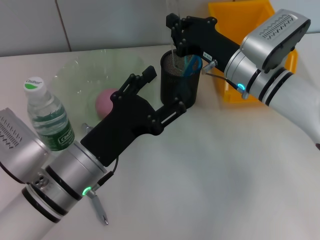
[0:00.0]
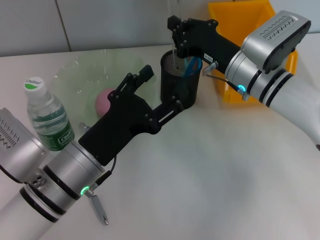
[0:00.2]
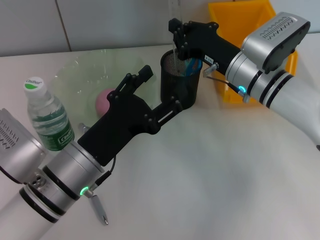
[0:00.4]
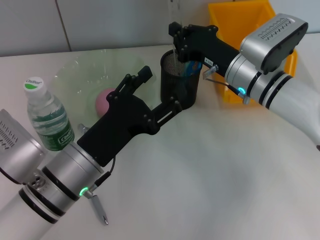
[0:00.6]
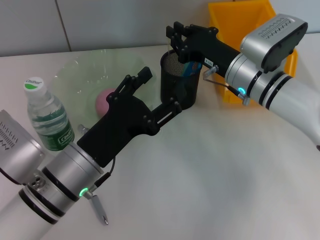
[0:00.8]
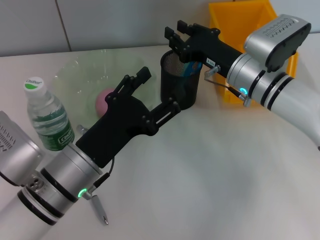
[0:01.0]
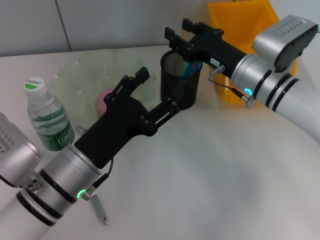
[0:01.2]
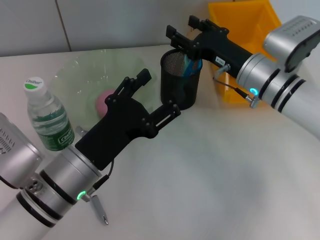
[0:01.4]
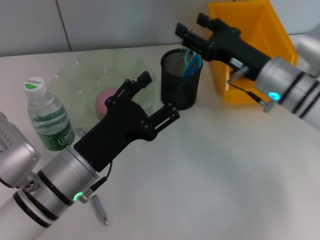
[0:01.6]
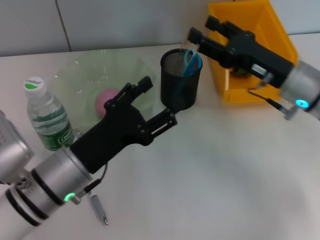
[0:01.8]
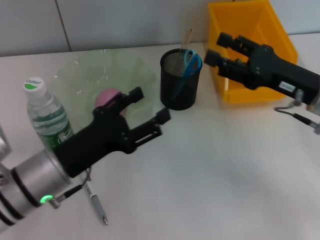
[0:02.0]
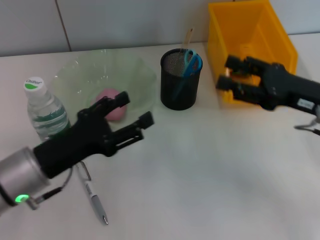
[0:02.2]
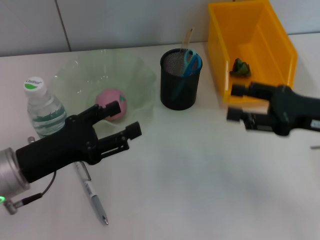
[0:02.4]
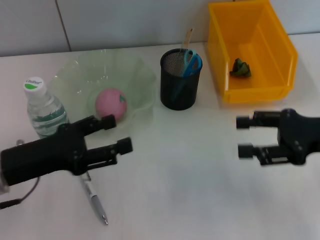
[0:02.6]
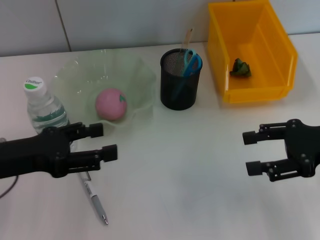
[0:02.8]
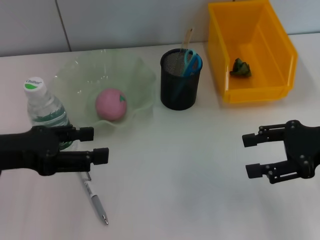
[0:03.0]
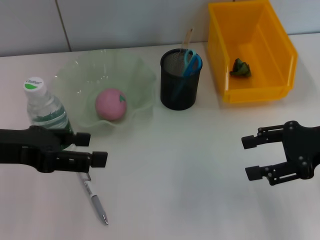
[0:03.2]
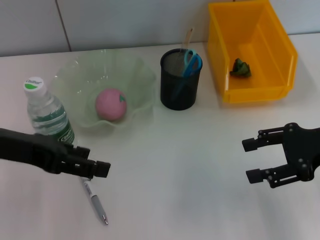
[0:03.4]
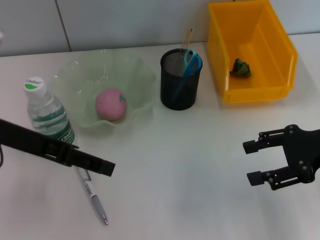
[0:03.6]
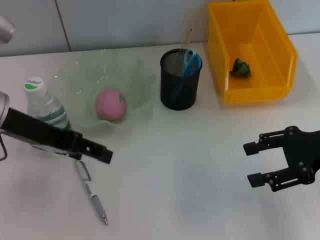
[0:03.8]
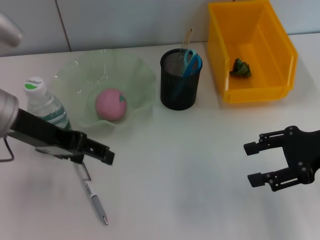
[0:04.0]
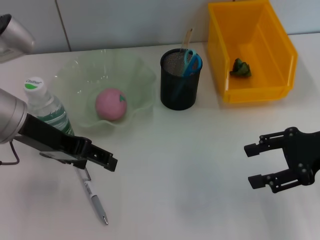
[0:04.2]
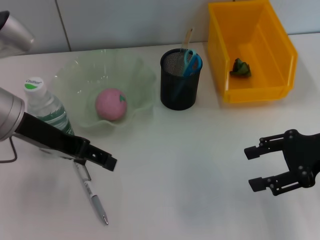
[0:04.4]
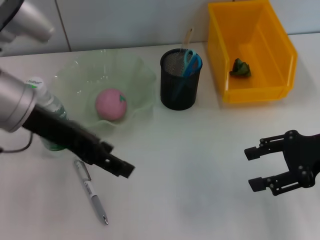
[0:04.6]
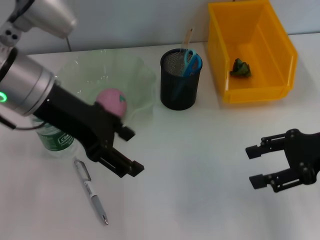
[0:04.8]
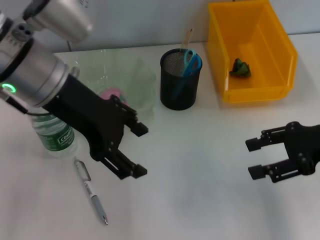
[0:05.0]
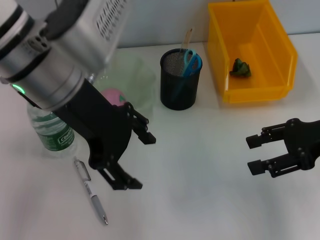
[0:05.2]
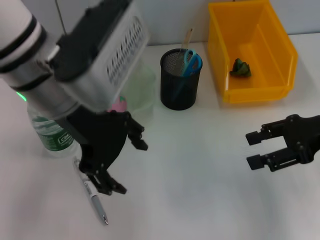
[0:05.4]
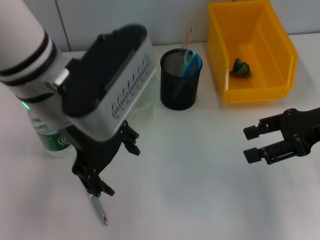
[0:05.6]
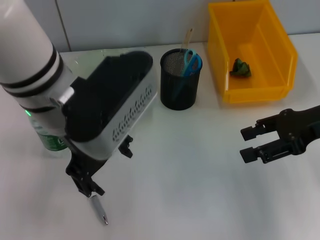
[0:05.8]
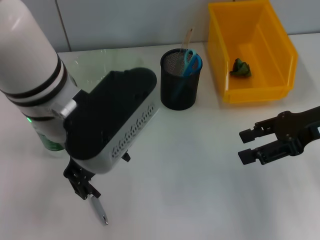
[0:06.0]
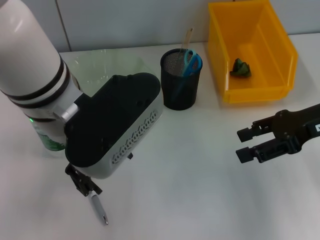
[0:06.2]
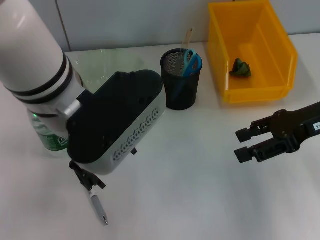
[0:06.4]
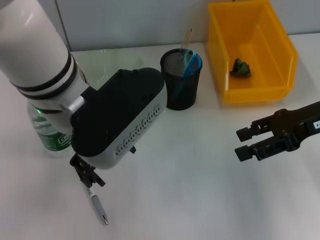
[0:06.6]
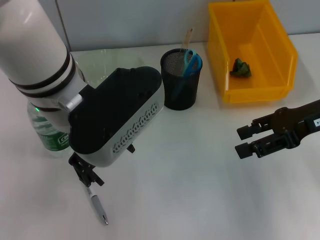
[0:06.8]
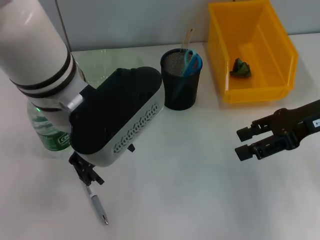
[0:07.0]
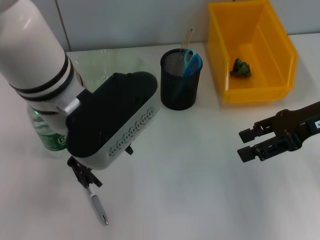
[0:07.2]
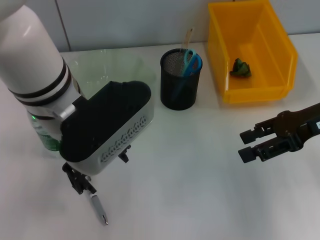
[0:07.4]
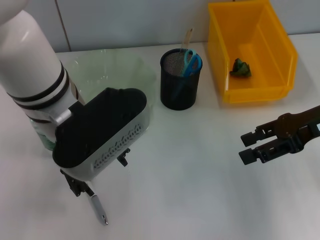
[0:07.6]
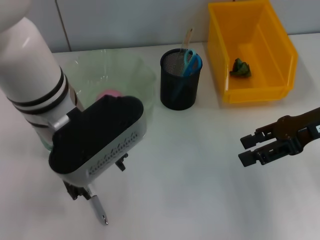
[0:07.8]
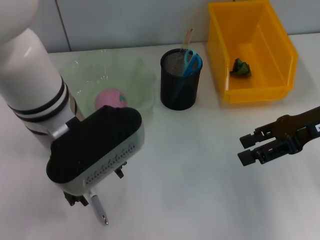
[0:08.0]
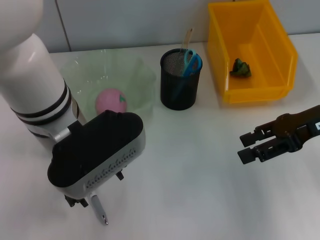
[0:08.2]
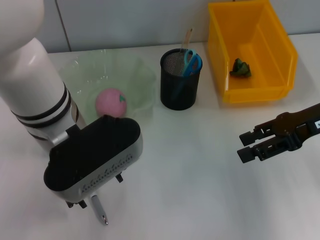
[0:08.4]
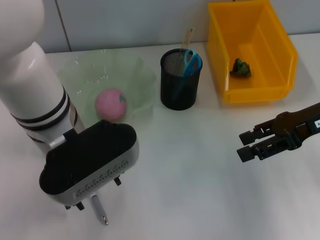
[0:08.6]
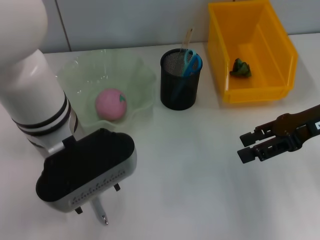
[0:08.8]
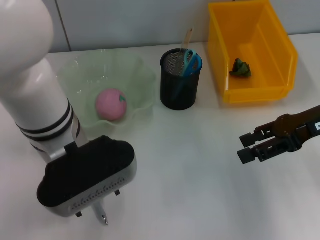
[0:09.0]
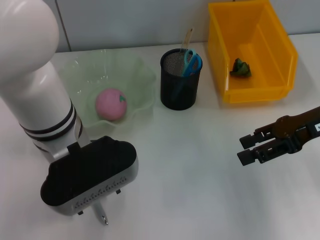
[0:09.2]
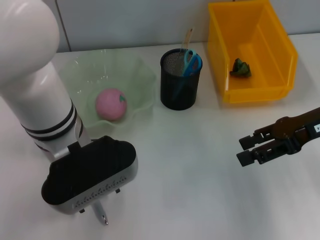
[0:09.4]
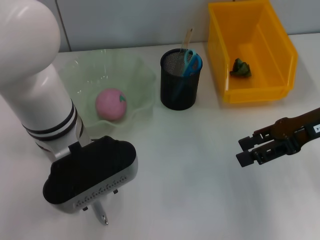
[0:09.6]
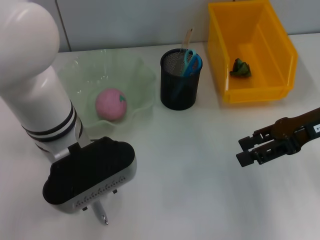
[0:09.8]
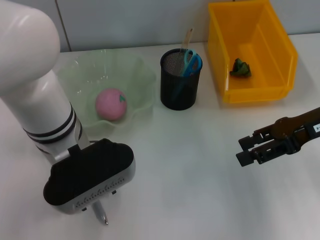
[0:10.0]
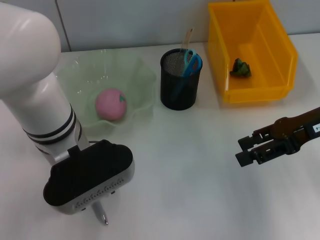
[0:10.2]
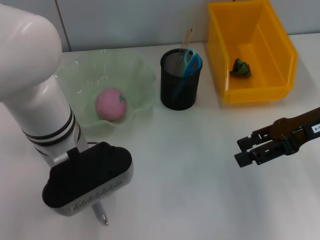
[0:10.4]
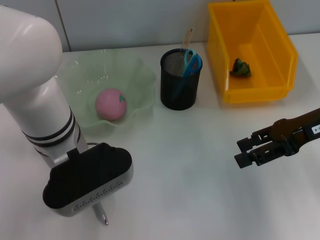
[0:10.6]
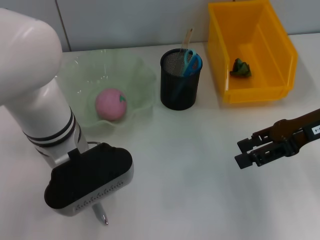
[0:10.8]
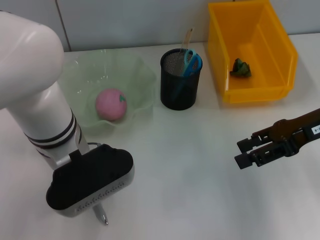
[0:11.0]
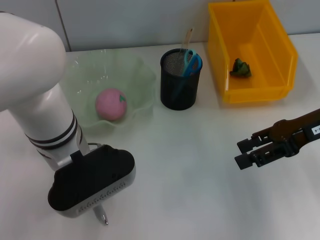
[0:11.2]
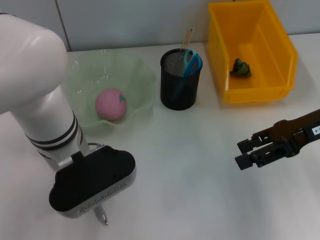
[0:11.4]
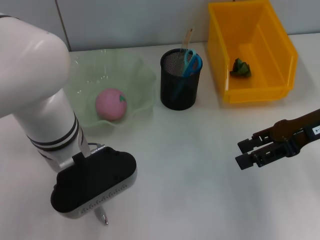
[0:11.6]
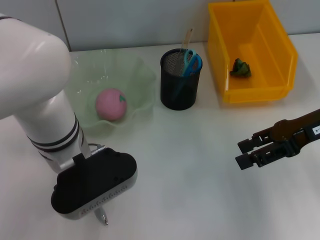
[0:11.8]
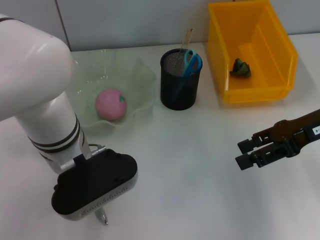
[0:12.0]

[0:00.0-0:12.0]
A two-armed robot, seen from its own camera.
0:00.0 to 0:01.6: The right gripper opens up.
0:01.6 to 0:03.0: The right gripper goes roughly 15 cm to the right and backward. The left gripper is displaced to the left and upward by approximately 15 cm.
0:03.0 to 0:04.4: The left gripper travels to the right and forward by approximately 10 cm.
0:04.4 to 0:06.0: The left gripper travels to the right by roughly 10 cm.
0:06.0 to 0:07.6: There are only small adjustments of the grippers.
0:07.6 to 0:09.0: There are only small adjustments of the grippers.
0:09.0 to 0:10.4: The grippers move only a little.
0:10.4 to 0:12.0: The left gripper closes up.

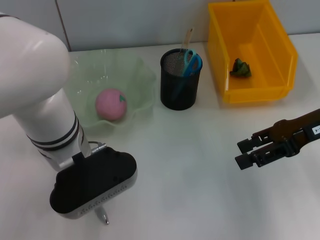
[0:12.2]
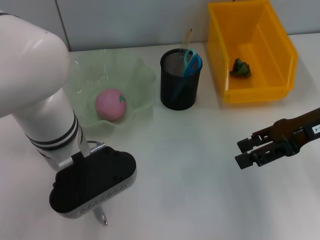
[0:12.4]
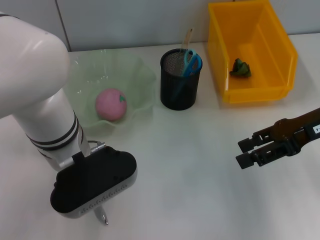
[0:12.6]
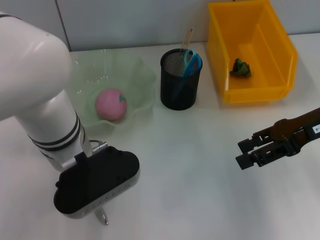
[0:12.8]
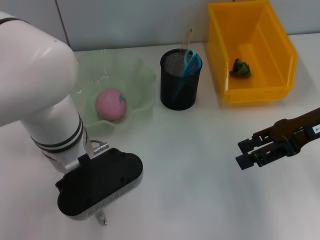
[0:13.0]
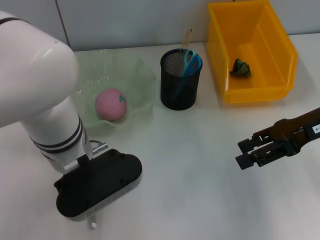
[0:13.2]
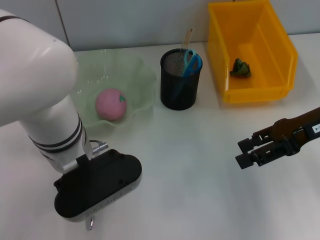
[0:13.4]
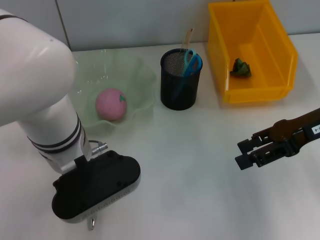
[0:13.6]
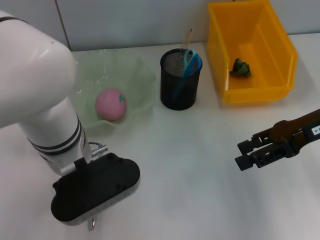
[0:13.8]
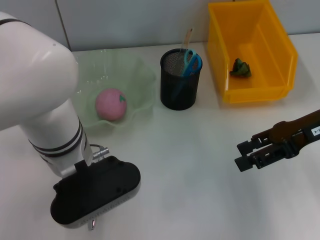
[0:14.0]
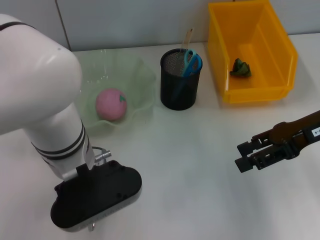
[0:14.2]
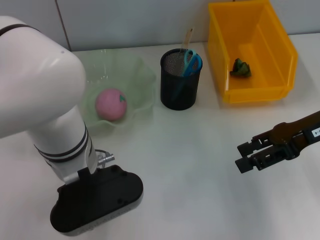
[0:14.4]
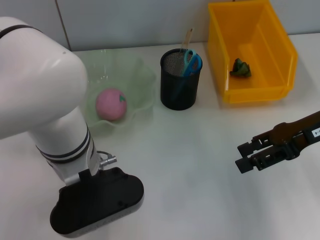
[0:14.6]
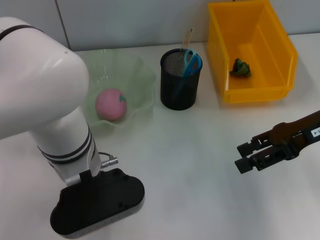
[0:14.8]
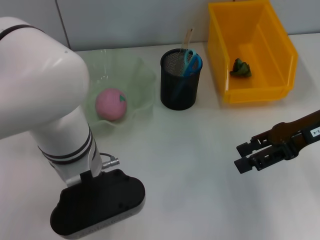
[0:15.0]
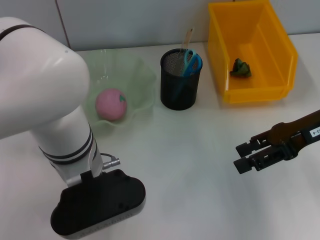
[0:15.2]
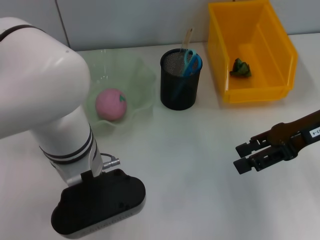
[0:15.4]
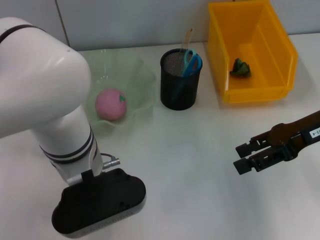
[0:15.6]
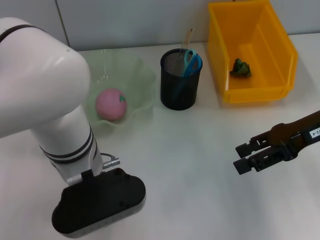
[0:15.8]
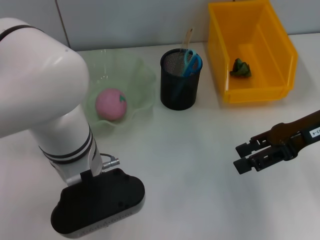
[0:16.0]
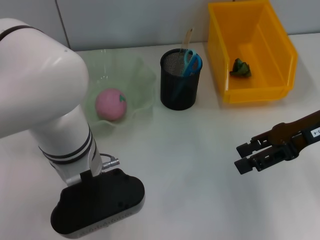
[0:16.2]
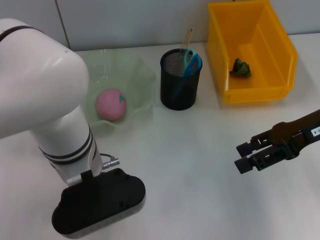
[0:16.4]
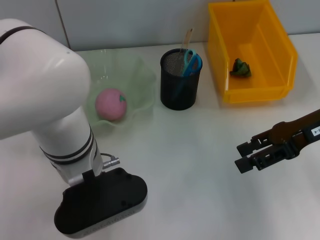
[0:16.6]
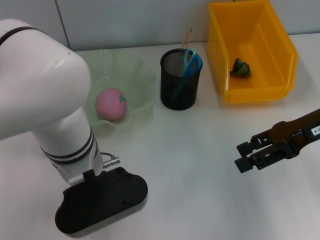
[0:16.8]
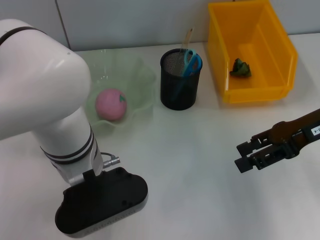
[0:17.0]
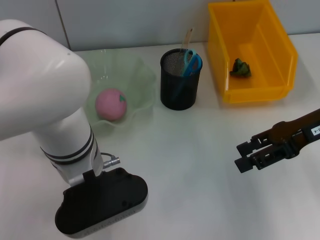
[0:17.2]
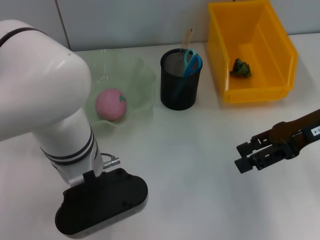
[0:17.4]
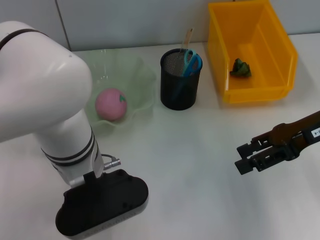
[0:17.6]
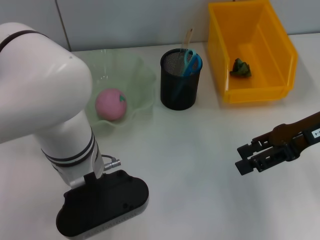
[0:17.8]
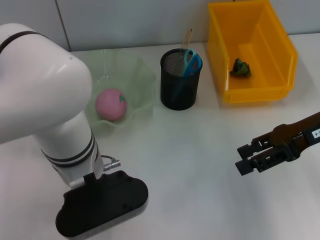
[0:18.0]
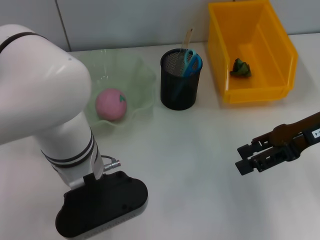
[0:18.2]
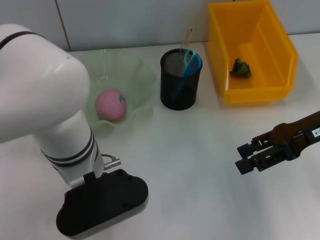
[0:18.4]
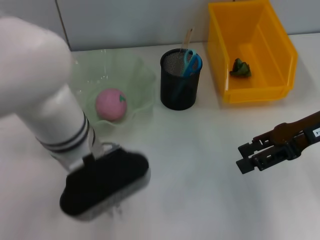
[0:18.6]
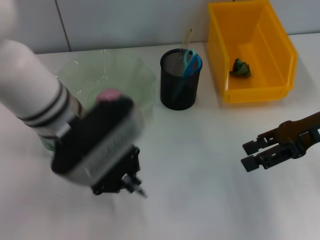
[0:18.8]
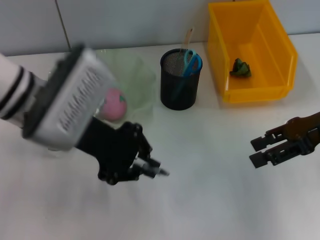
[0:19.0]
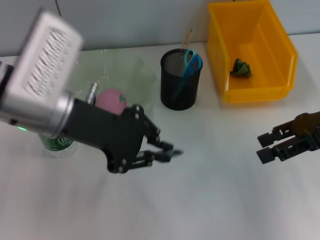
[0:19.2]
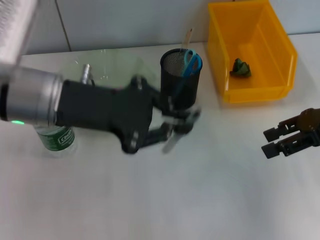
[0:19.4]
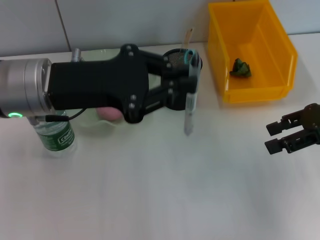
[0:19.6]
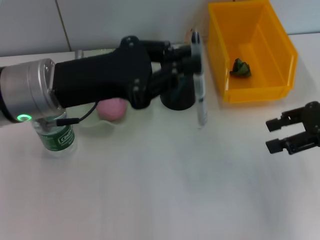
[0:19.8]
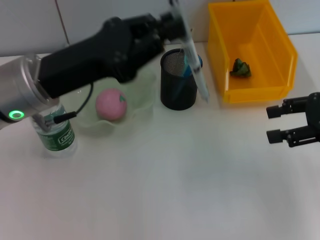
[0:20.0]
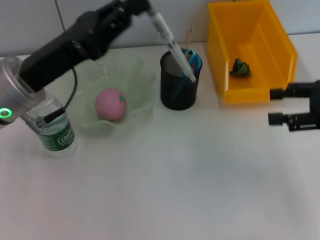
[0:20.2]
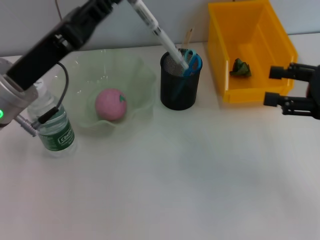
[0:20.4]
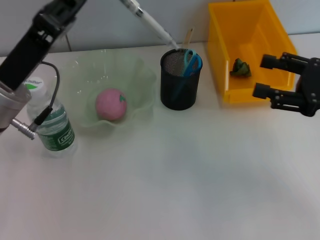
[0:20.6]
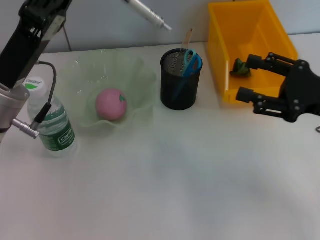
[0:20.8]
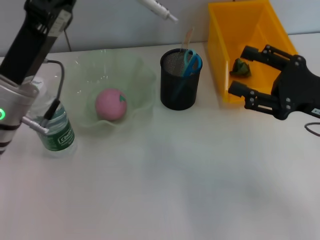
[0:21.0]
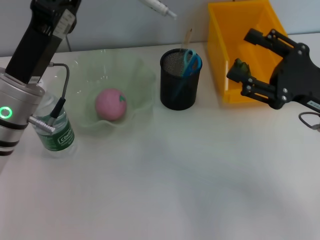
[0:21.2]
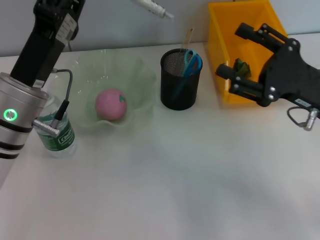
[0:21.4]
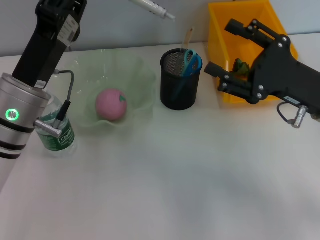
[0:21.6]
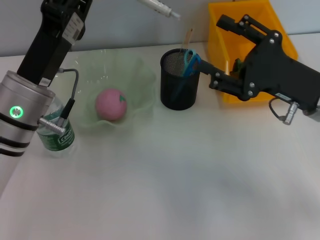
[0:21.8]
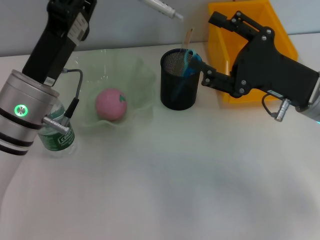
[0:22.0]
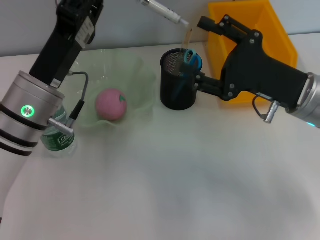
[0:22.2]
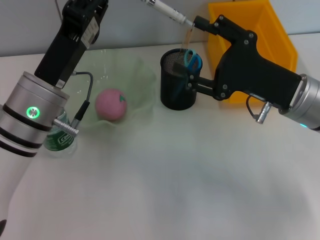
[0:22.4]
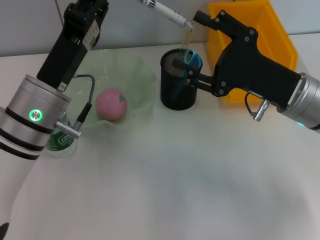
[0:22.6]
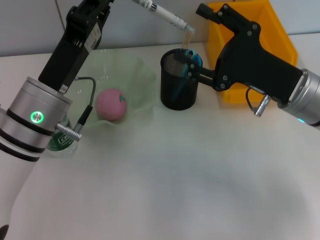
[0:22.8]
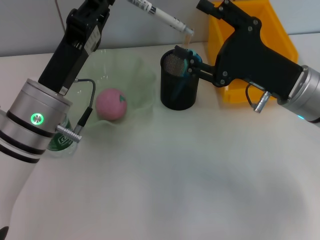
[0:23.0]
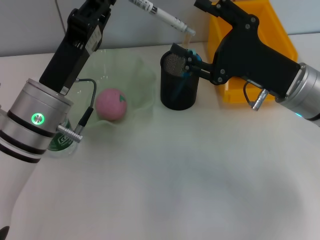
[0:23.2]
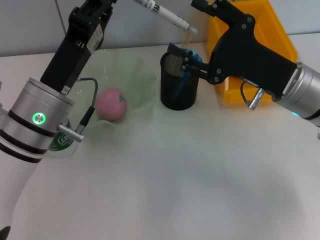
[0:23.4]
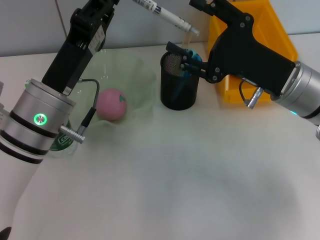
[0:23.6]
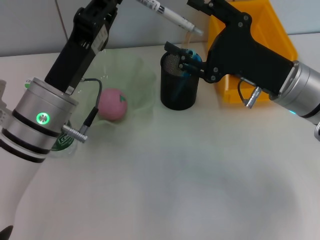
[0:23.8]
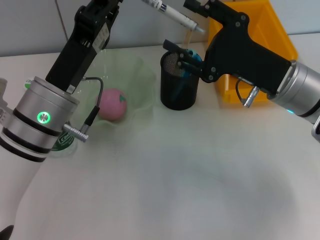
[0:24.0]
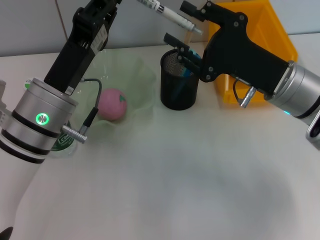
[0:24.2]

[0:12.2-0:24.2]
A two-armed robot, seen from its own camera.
Step, 0:12.2 to 0:15.0: Grab the gray spring-action pen with the left hand.
0:12.2 to 0:13.8: Both grippers stay about where they are.
0:13.8 to 0:15.2: There are only small adjustments of the grippers.
0:15.2 to 0:18.2: Neither gripper changes place.
0:18.2 to 0:19.8: The left gripper heads to the left and upward, covering approximately 10 cm. Meanwhile the right gripper moves some 5 cm.
0:19.8 to 0:21.2: The right gripper shifts roughly 5 cm to the left. The left gripper goes roughly 5 cm downward.
0:21.2 to 0:22.6: The right gripper shifts approximately 5 cm to the left.
0:22.6 to 0:24.2: The grippers make only small movements.
